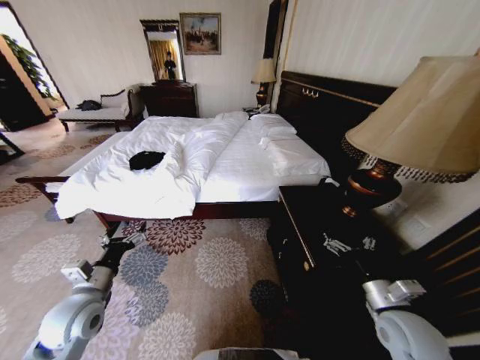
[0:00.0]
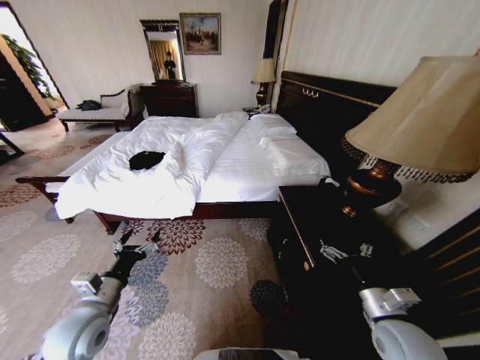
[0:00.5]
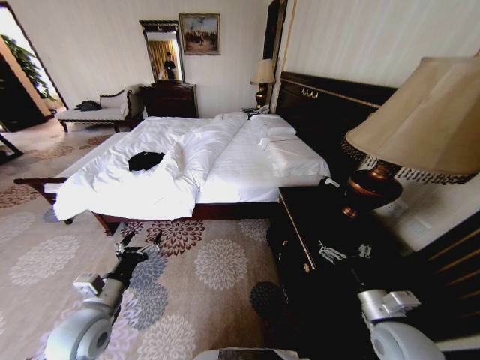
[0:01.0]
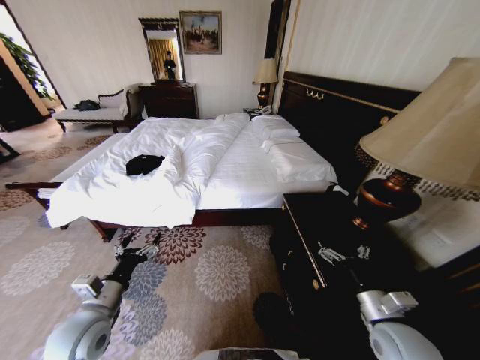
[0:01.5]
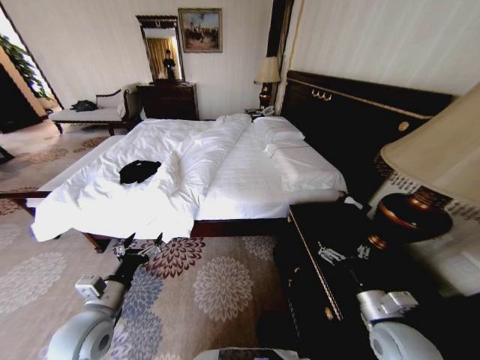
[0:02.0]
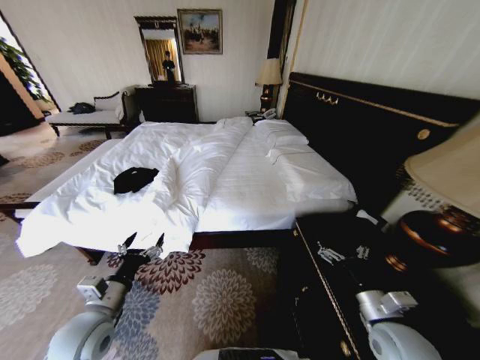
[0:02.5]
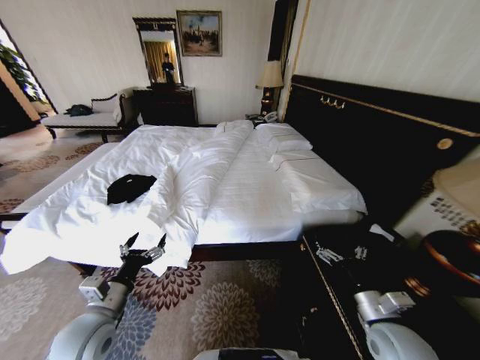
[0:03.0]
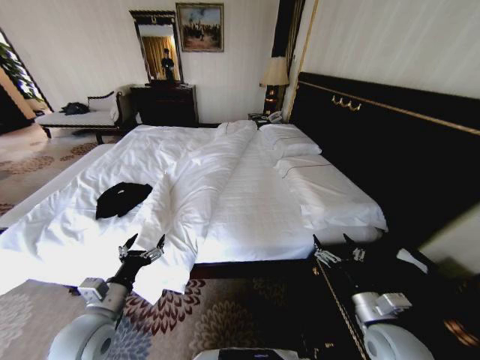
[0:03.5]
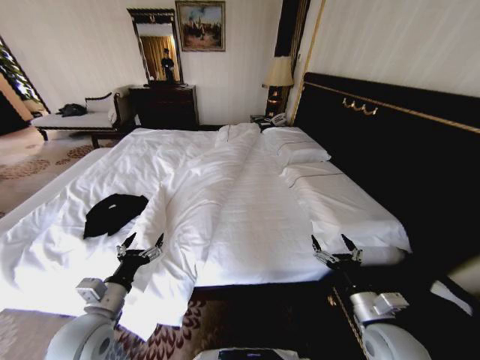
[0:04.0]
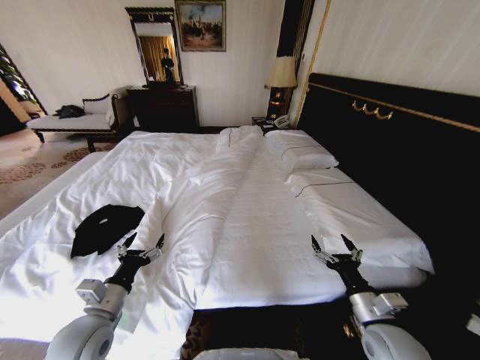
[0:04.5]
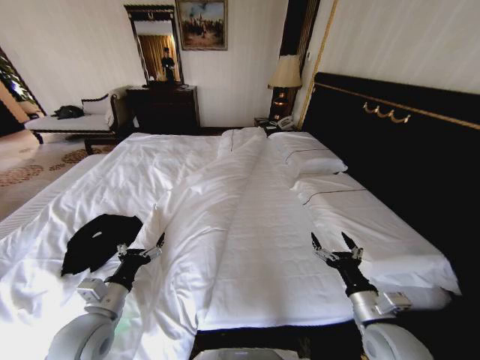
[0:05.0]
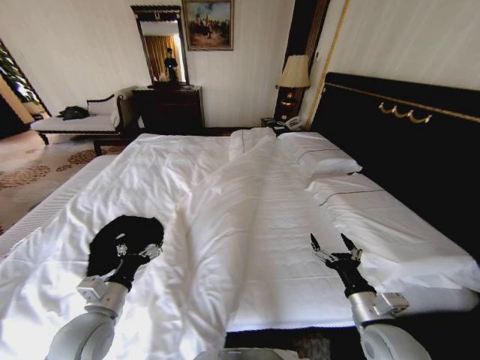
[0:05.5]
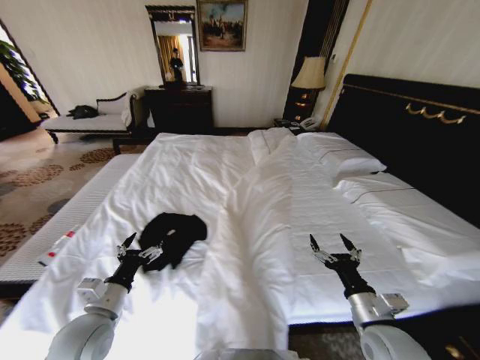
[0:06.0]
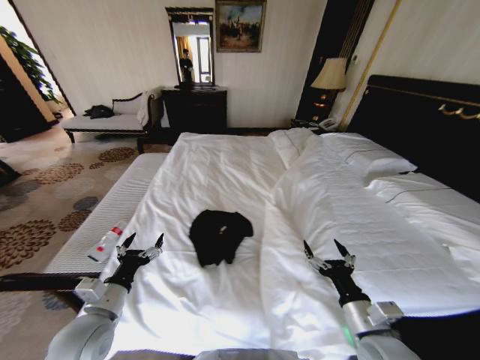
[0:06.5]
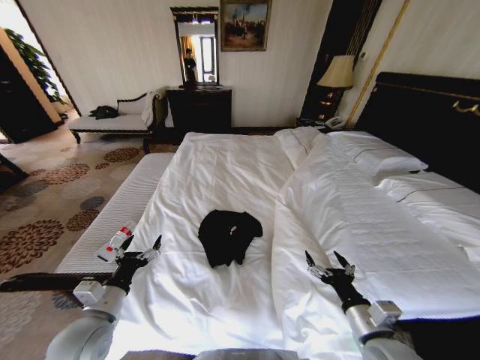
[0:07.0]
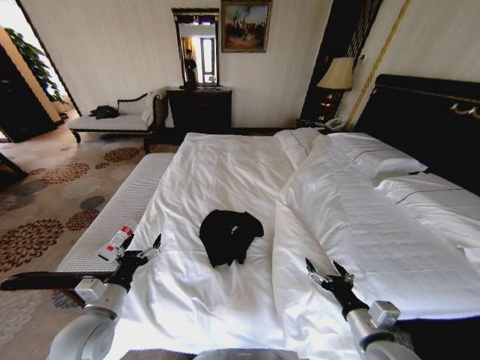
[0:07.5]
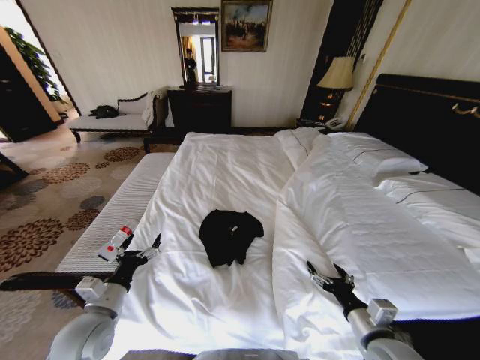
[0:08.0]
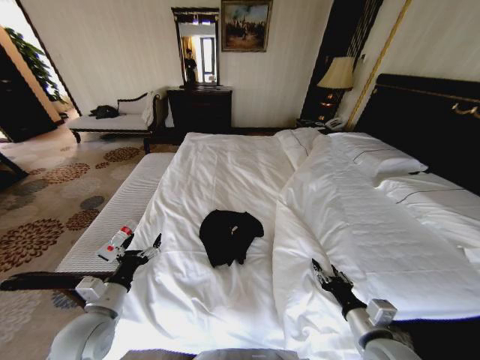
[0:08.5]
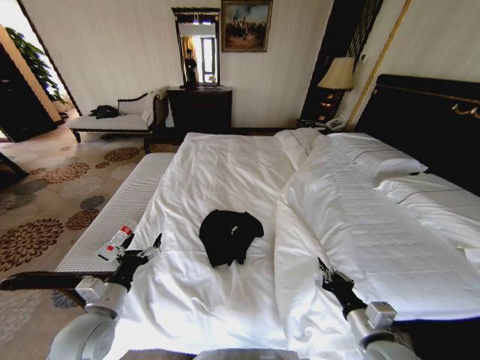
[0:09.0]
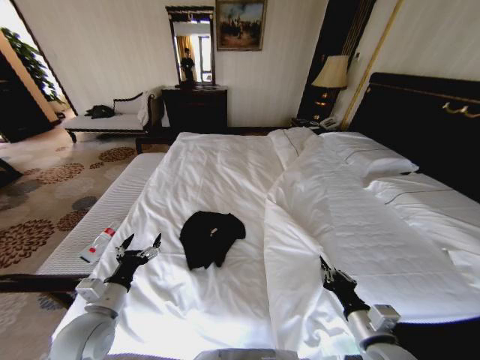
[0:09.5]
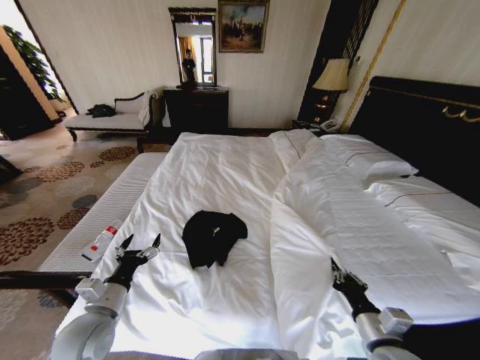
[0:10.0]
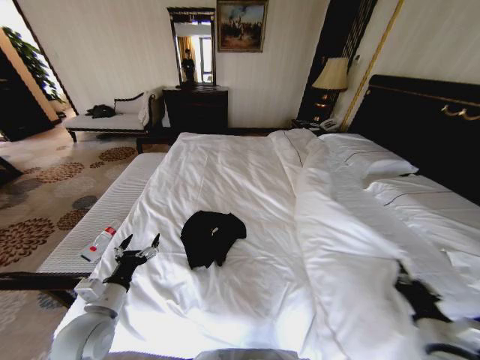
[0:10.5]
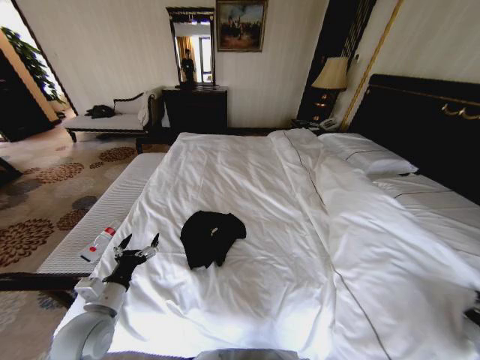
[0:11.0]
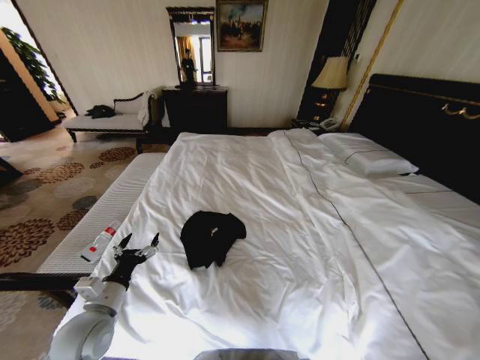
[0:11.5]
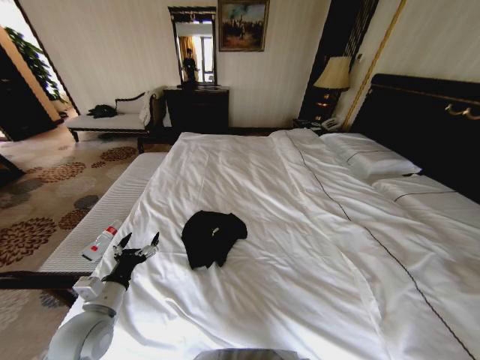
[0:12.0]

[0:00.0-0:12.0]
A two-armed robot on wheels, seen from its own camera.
Task of the whole recording: Fold the clothes on the bed.
0:08.0 to 0:10.0: The right gripper closes up.
0:10.0 to 0:12.0: The right gripper is displaced to the right by roughly 35 cm.

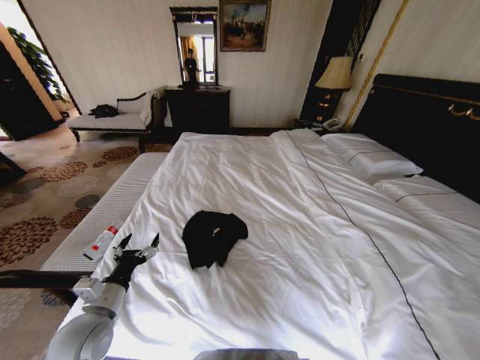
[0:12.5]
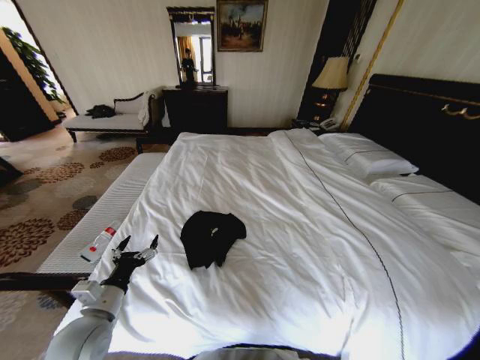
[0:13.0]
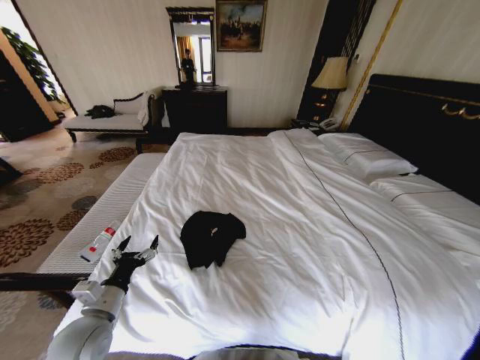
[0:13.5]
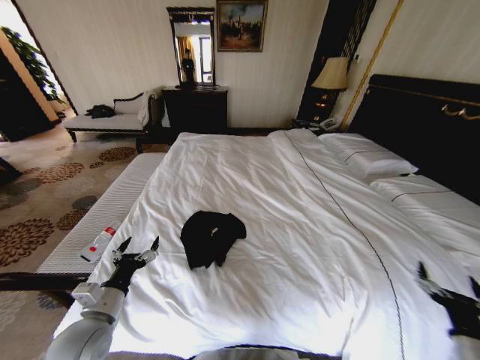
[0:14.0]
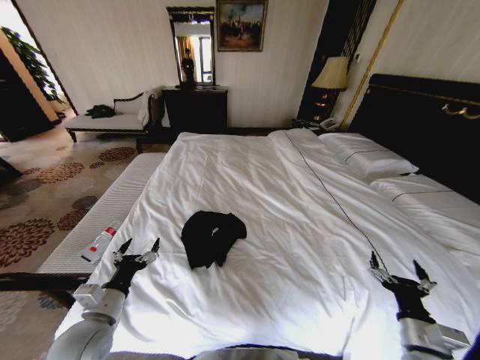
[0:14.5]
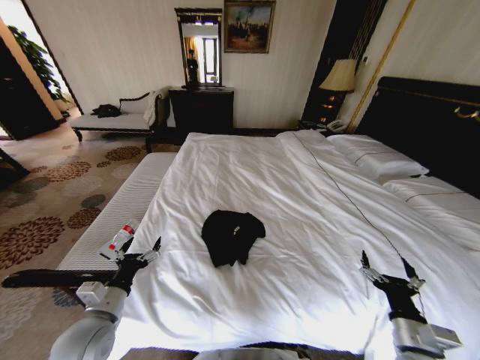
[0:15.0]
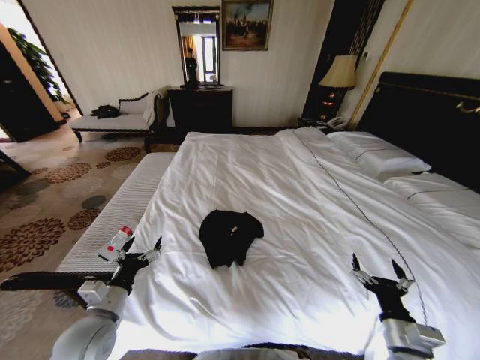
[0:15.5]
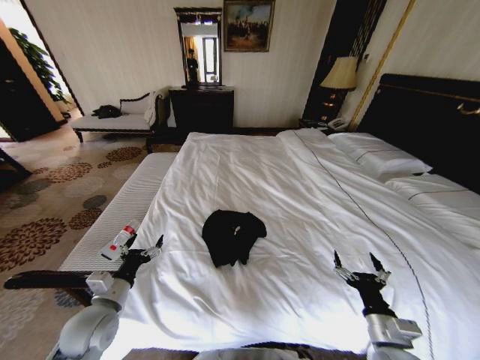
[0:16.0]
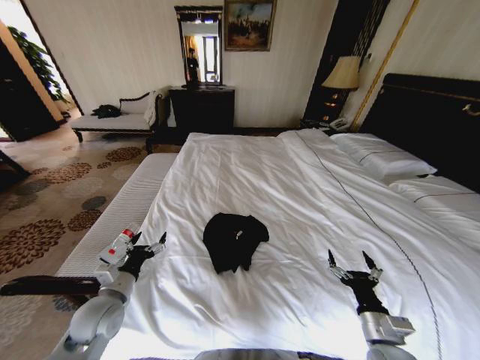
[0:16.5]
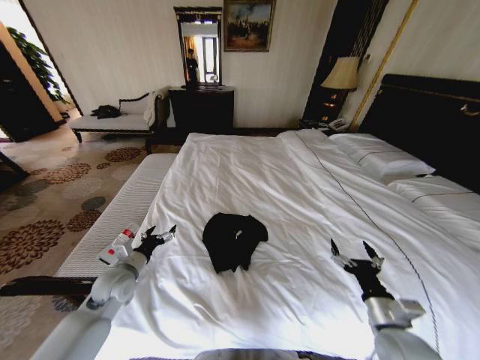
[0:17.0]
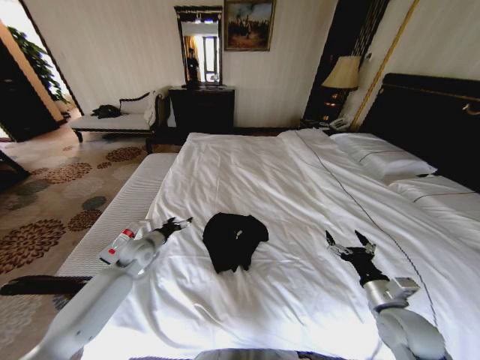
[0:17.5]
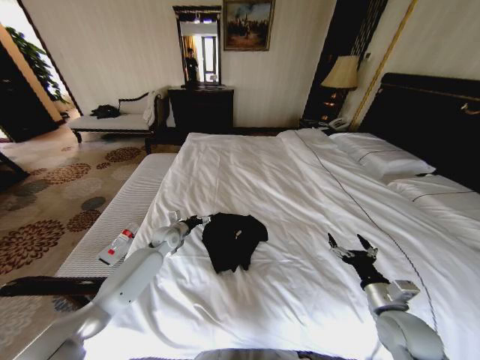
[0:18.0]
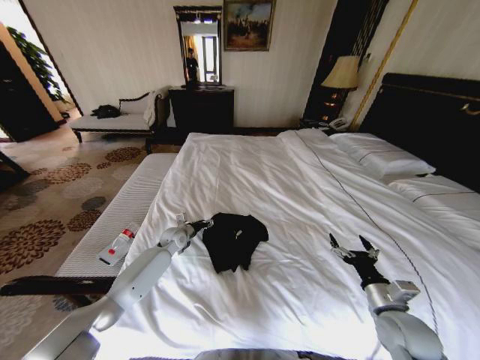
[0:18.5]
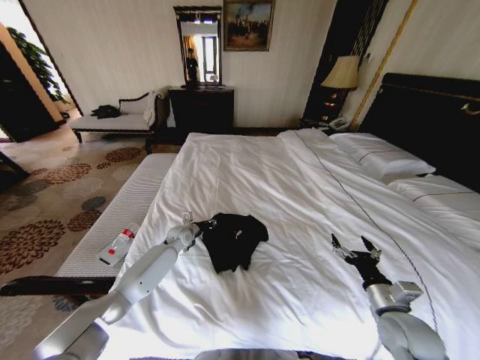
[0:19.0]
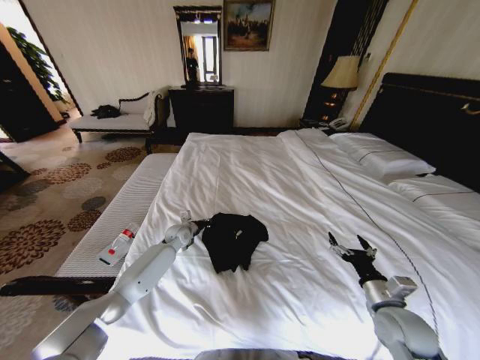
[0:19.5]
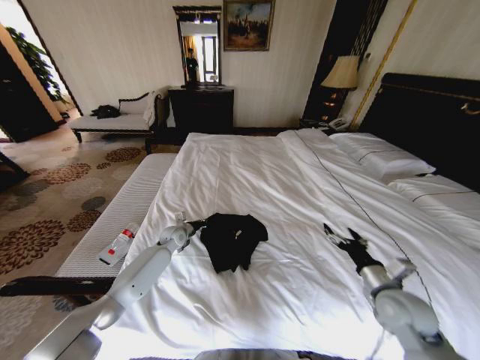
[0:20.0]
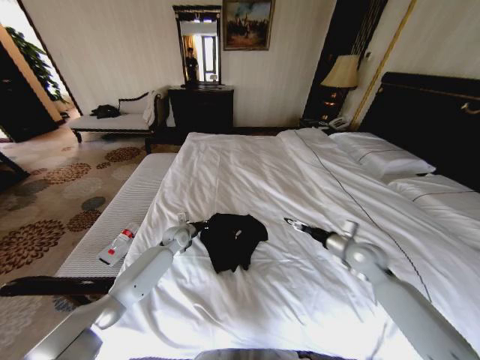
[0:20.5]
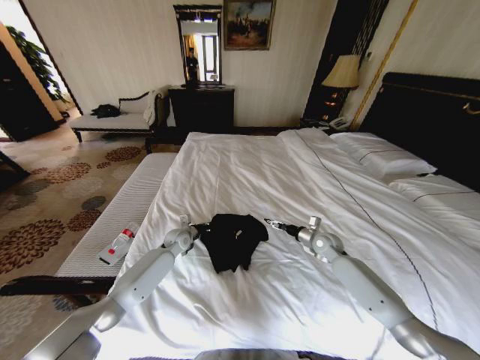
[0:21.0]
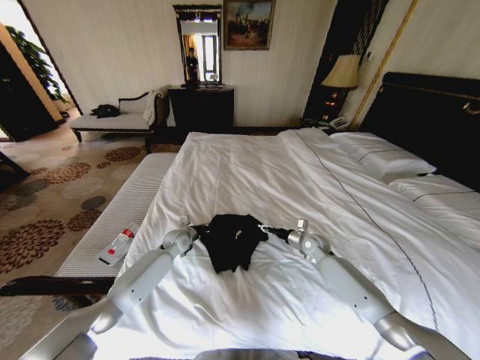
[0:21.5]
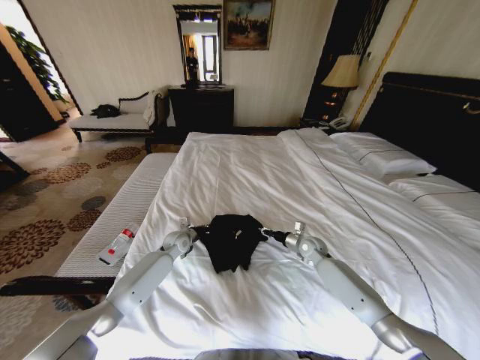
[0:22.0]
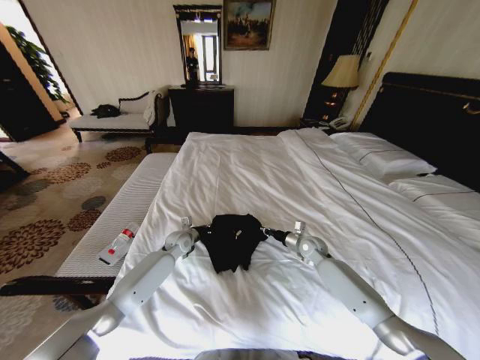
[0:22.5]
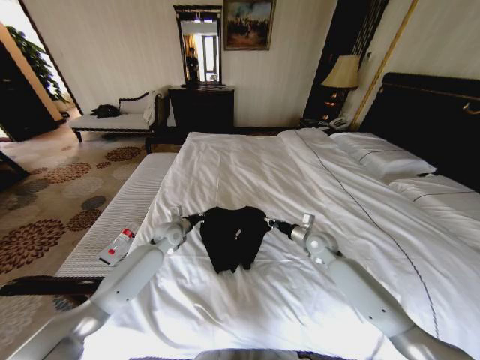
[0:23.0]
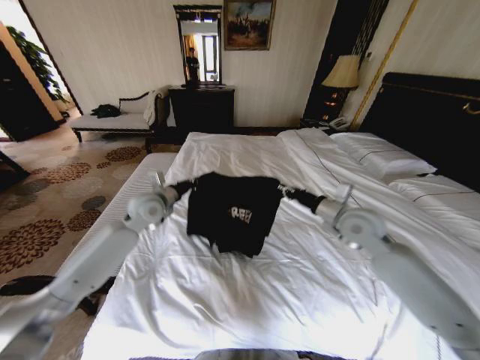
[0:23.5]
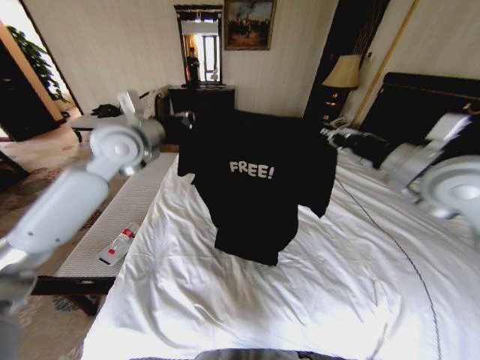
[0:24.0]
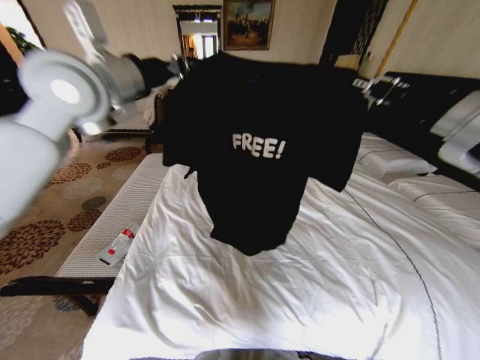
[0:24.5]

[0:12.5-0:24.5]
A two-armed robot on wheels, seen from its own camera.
Task of the whole recording: Fold the clothes on the bed.
0:12.5 to 0:14.5: The right gripper moves to the left and forward, roughly 30 cm, and opens its fingers.
0:14.5 to 0:16.5: The right gripper travels to the left by some 5 cm. Meanwhile the left gripper moves forward, roughly 5 cm.
0:16.5 to 0:18.5: The right gripper moves forward, about 5 cm. Meanwhile the left gripper goes about 25 cm forward.
0:18.5 to 0:20.5: The right gripper goes approximately 15 cm forward. Meanwhile the left gripper closes up.
0:20.5 to 0:22.5: The right gripper goes about 15 cm downward, forward and to the left, and closes up.
0:22.5 to 0:24.5: Both grippers travel together upward, about 50 cm.

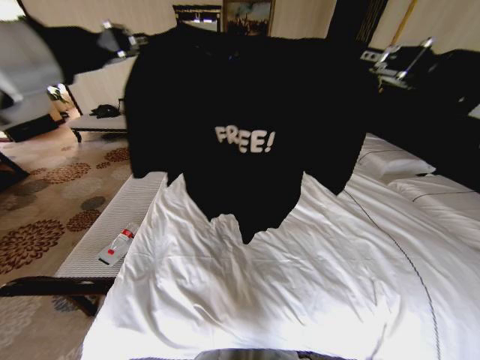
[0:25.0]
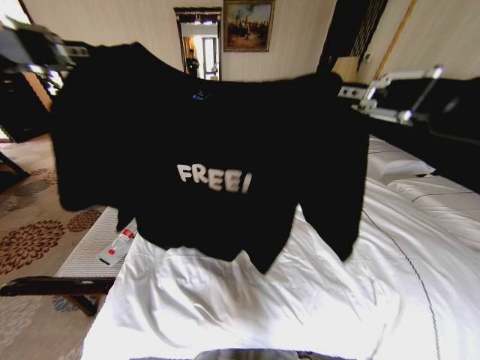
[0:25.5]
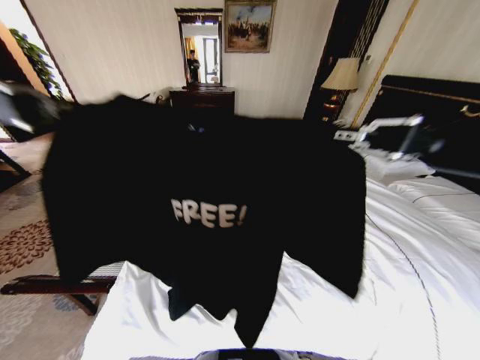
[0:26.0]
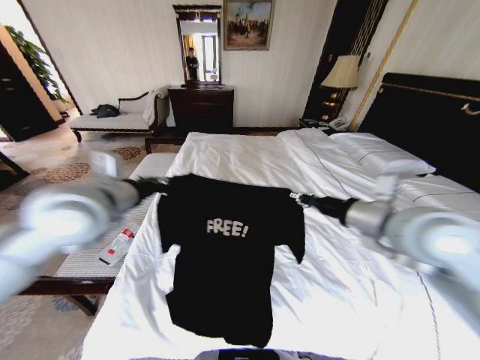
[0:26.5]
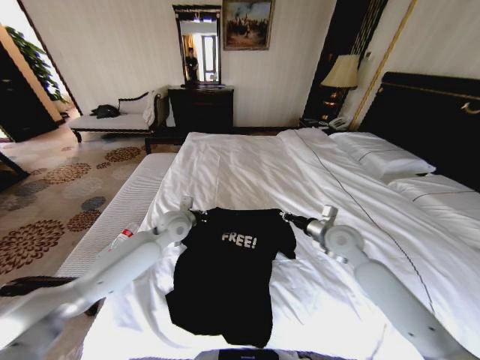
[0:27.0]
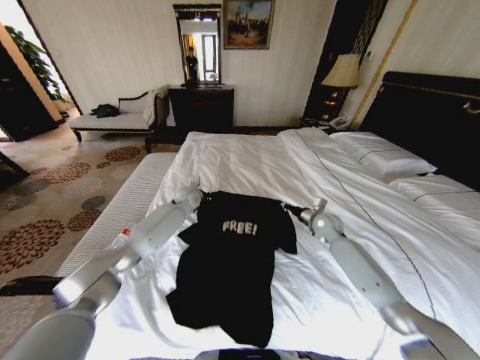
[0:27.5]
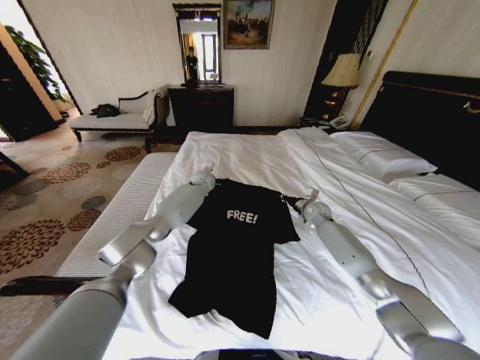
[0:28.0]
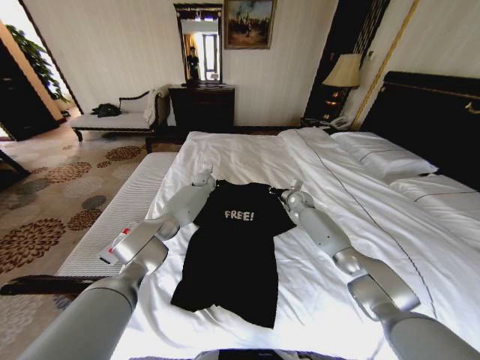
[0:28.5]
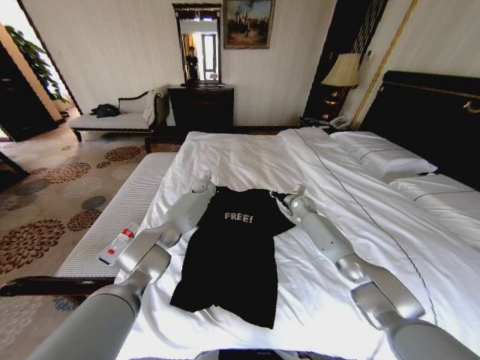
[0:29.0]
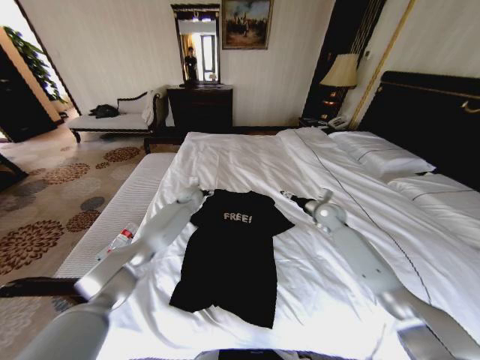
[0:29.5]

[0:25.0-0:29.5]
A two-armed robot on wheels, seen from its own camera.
Task of the whole recording: Fold the clothes on the bed.
0:25.0 to 0:27.0: The grippers both shift downward by roughly 35 cm.
0:27.0 to 0:29.5: The grippers both shift forward by roughly 15 cm. The right gripper opens its fingers. The left gripper opens its fingers.
